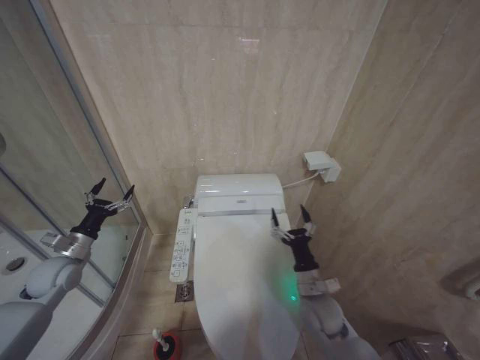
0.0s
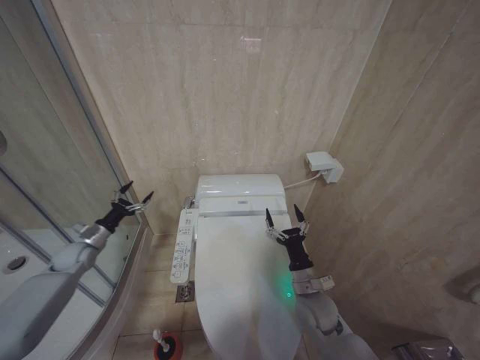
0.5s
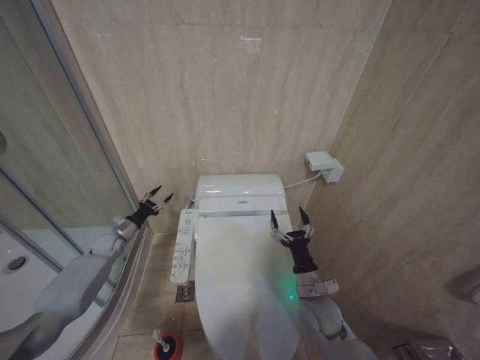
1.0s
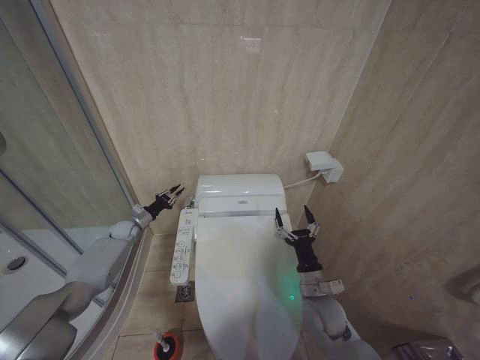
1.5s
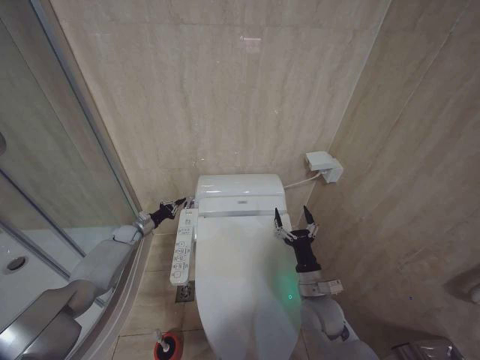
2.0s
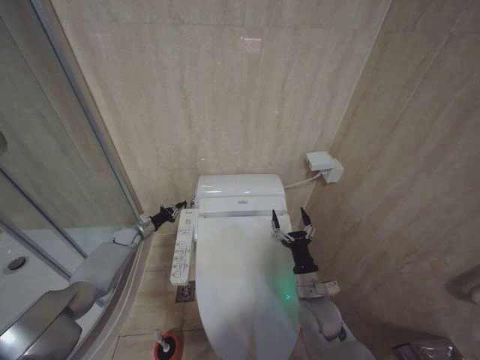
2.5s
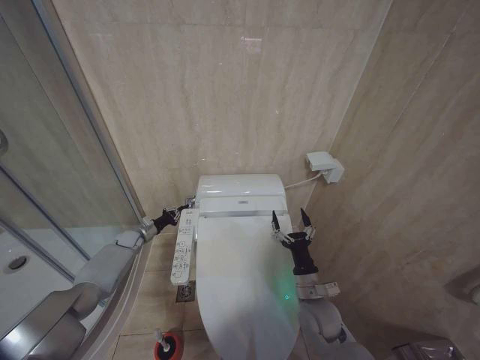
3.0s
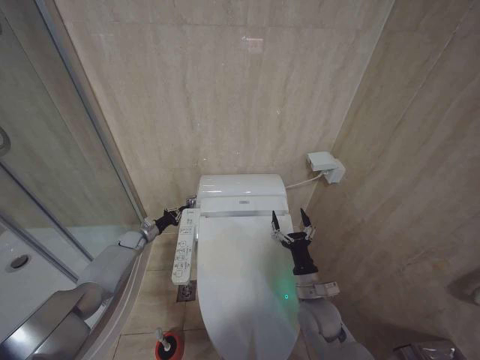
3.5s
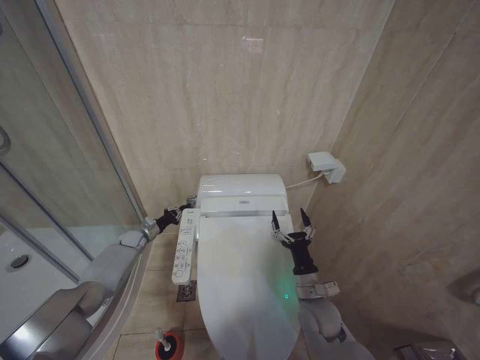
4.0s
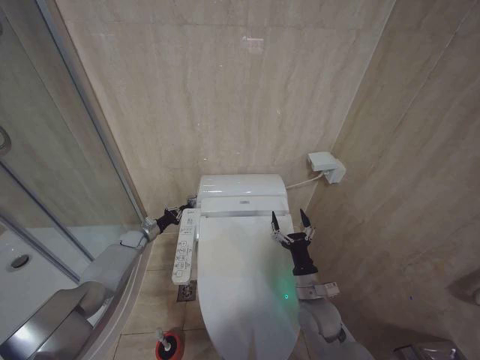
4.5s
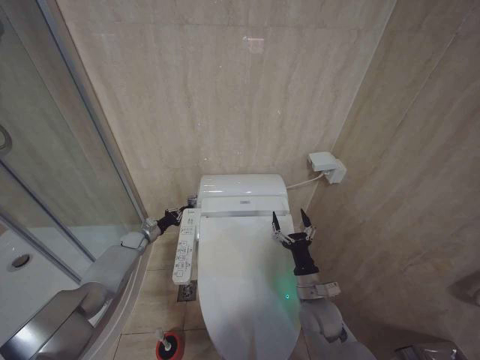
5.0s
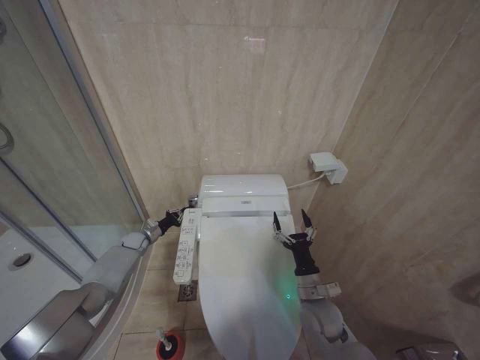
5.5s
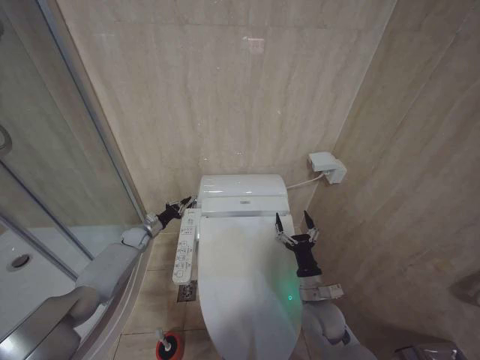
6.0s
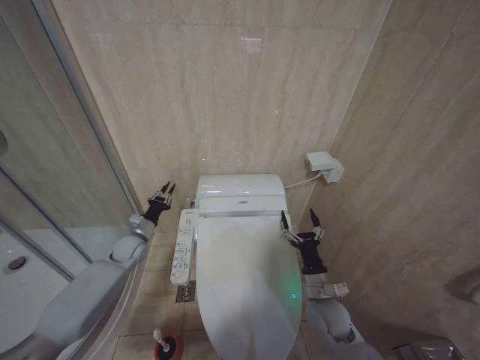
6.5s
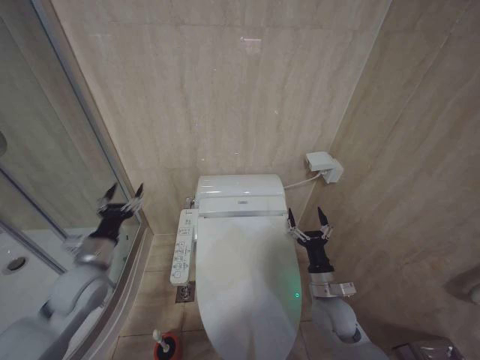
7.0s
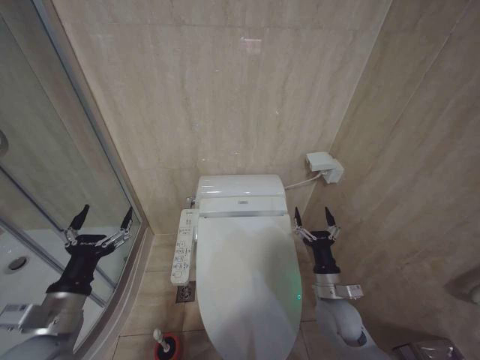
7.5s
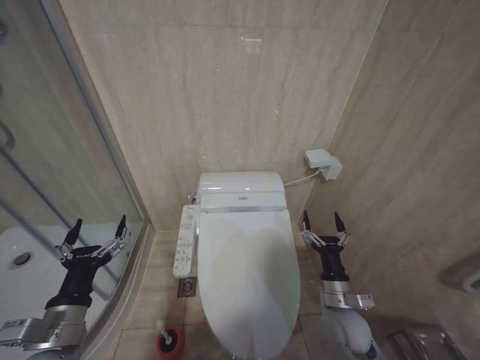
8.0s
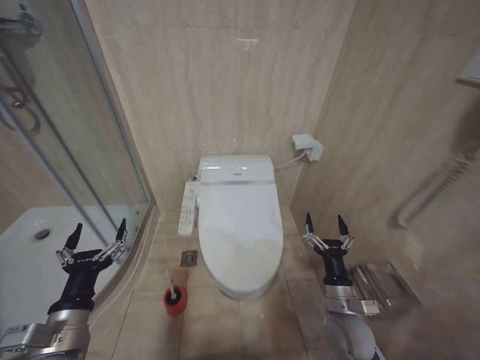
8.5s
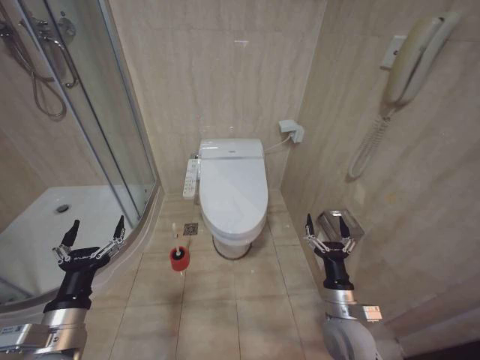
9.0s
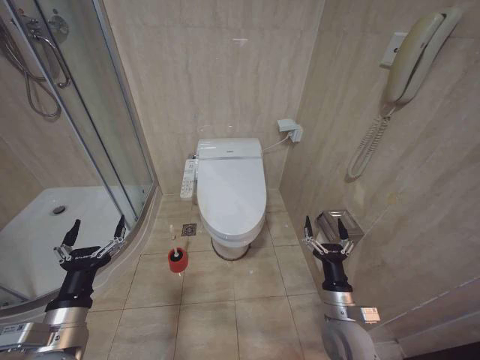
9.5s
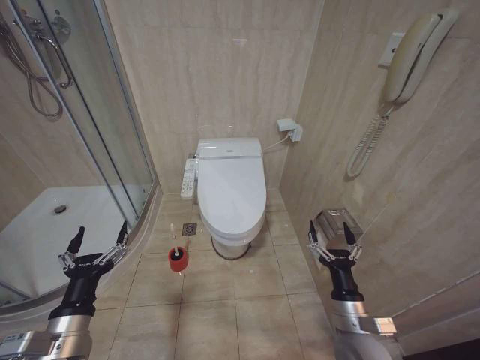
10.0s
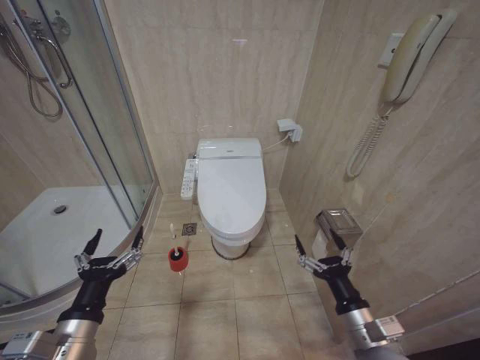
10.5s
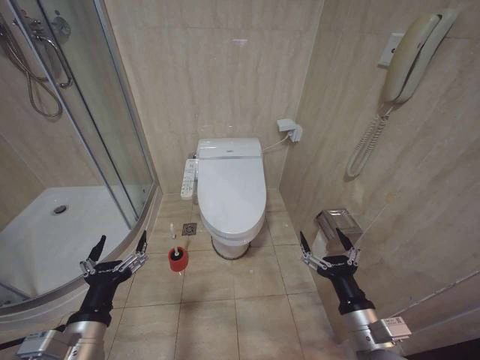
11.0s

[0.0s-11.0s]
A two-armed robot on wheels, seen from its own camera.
Task of the whole recording: Open the toilet lid, clean the toilet bowl with a toilet brush, close the toilet lid, and flush.
0.0s to 2.0s: The left gripper goes about 25 cm forward and downward, and closes.
2.0s to 5.5s: The grippers stay close to where they were, moving slightly.
5.5s to 7.5s: The left gripper moves backward and upward, about 40 cm, and opens its fingers.
7.5s to 9.0s: The right gripper shifts approximately 5 cm backward.
9.0s to 11.0s: The right gripper heads upward and backward, covering some 10 cm.

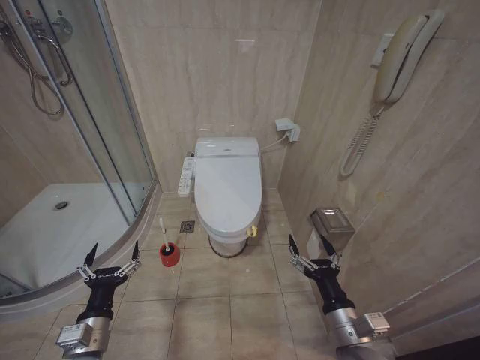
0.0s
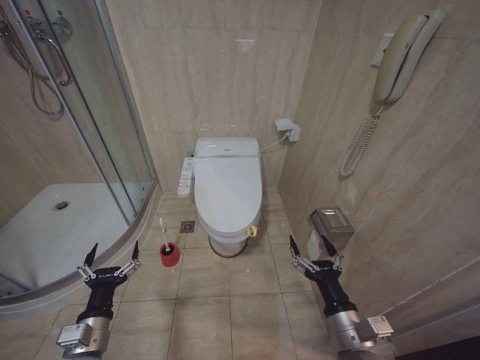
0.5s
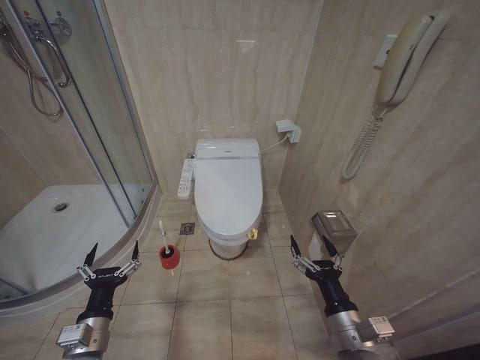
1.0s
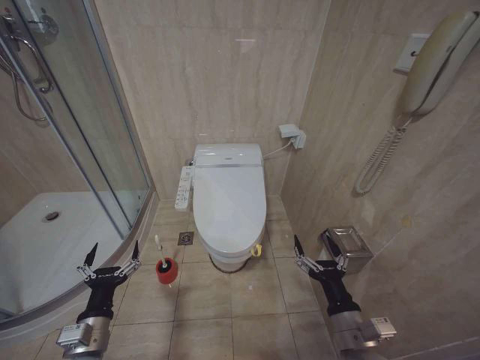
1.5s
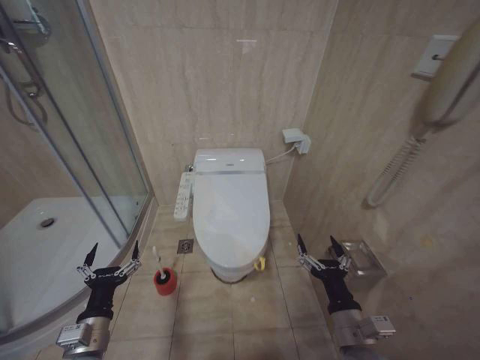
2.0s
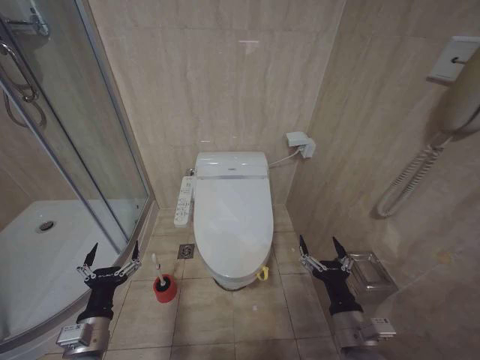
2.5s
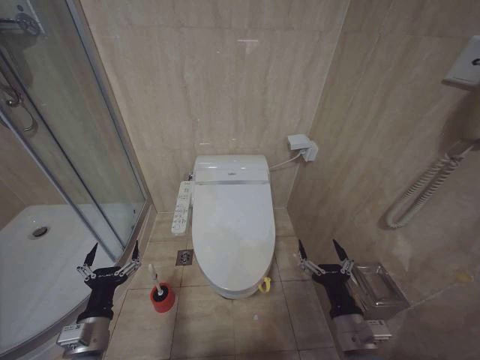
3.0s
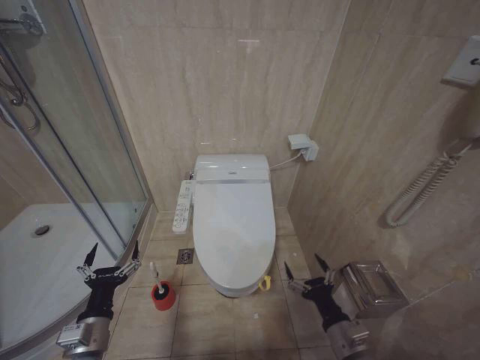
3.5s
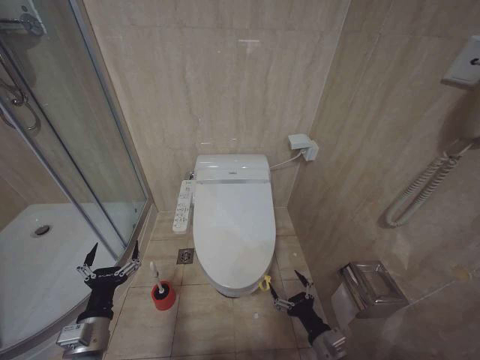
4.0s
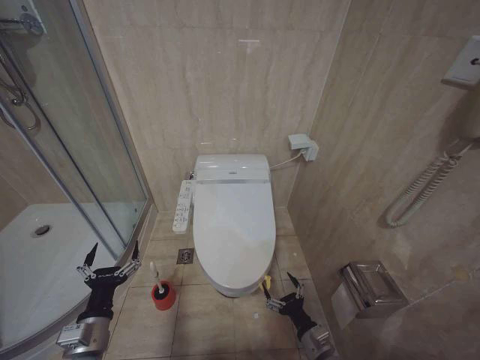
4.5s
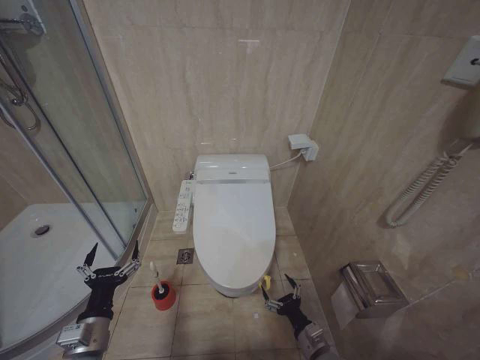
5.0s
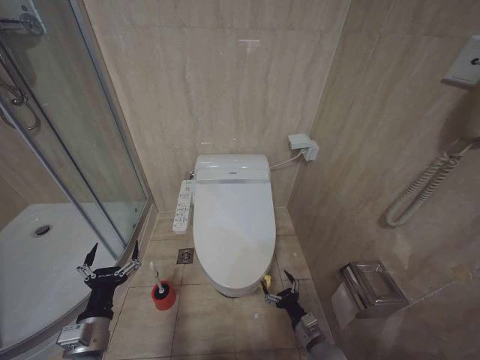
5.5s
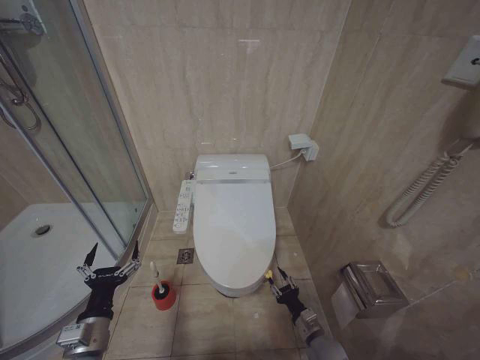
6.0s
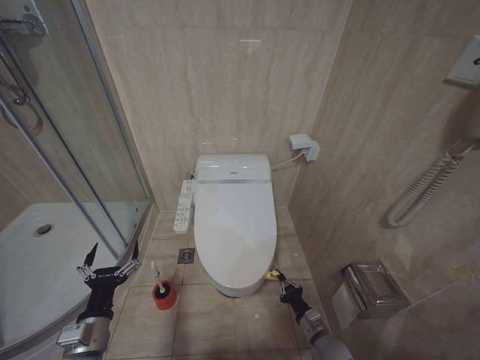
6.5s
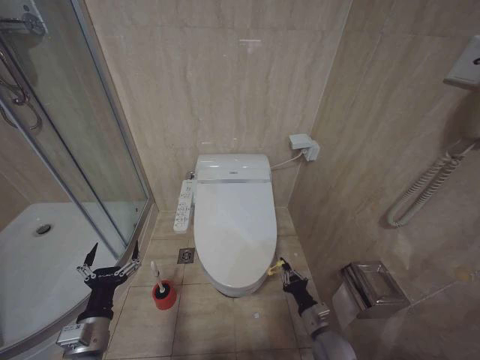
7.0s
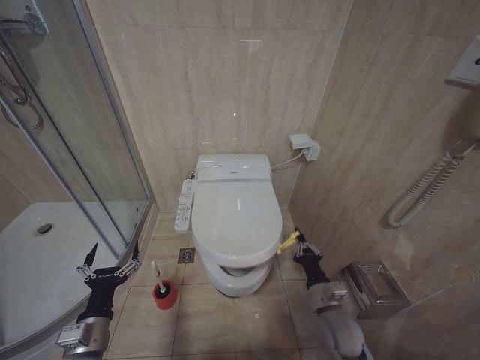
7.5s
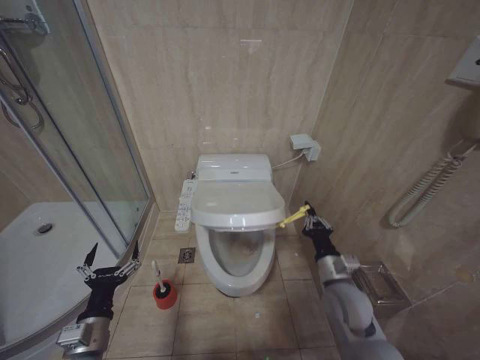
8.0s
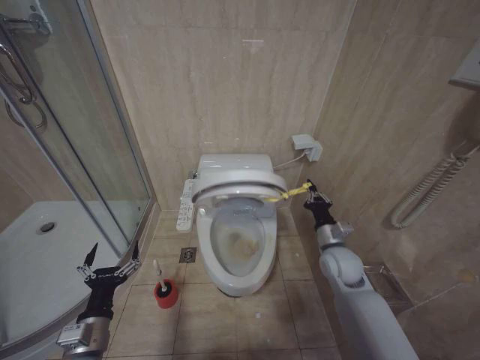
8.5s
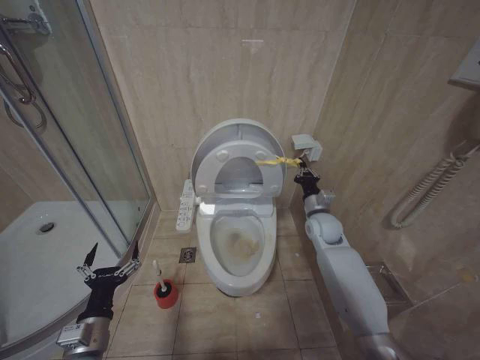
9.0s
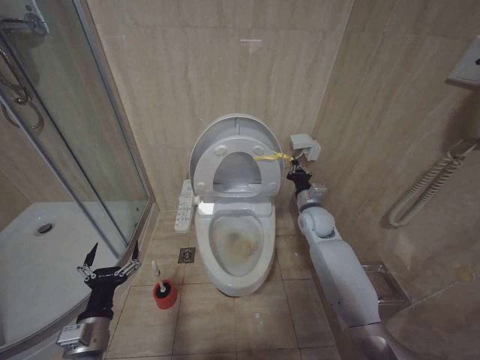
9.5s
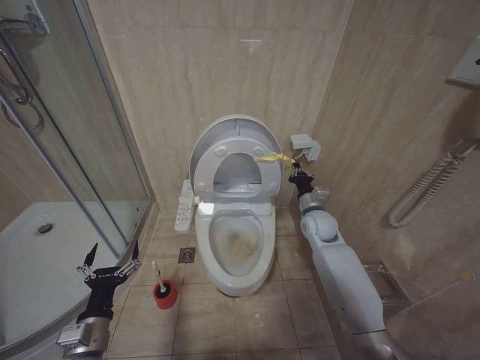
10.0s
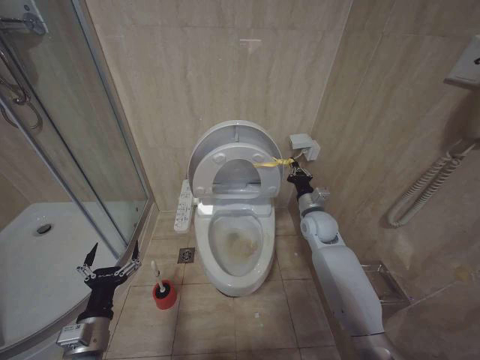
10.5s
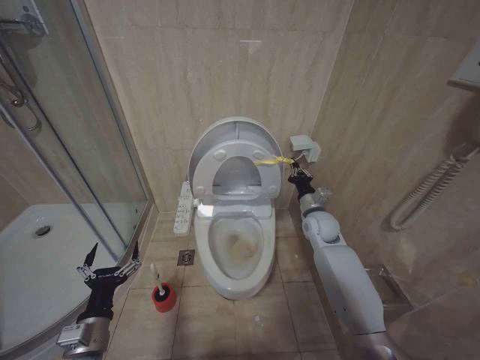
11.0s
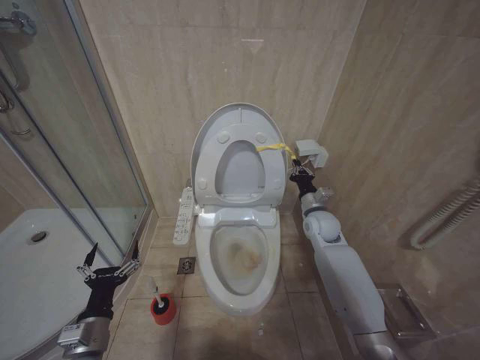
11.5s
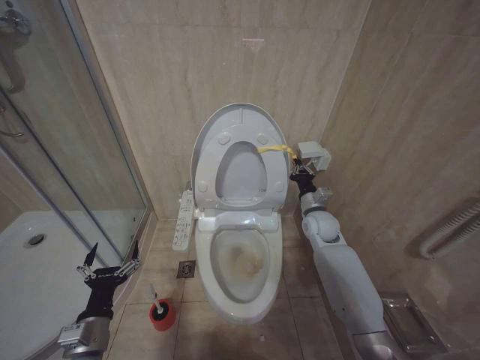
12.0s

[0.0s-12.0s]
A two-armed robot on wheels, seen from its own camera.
Task of the whole recording: Open the toilet lid, clean the toilet bowl with a toilet brush, close the toilet lid, and flush.
2.0s to 4.0s: The right gripper goes approximately 10 cm downward.
4.0s to 6.0s: The right gripper shifts some 10 cm downward and forward.
6.0s to 8.0s: The right gripper shifts some 20 cm upward, and closes its fingers.
8.0s to 10.0s: The right gripper travels forward by some 20 cm.
10.0s to 12.0s: The grippers move only a little.

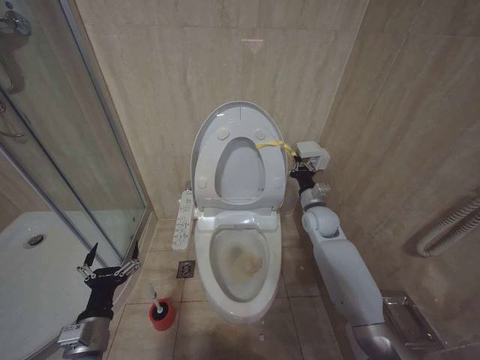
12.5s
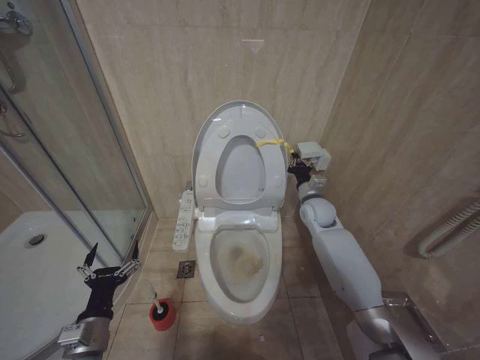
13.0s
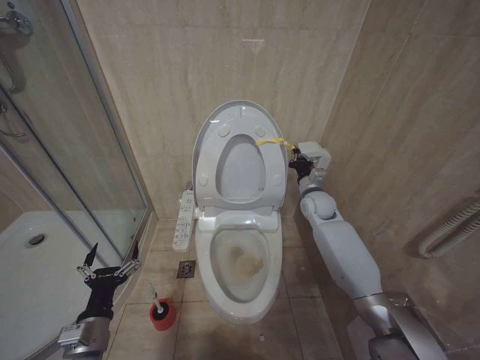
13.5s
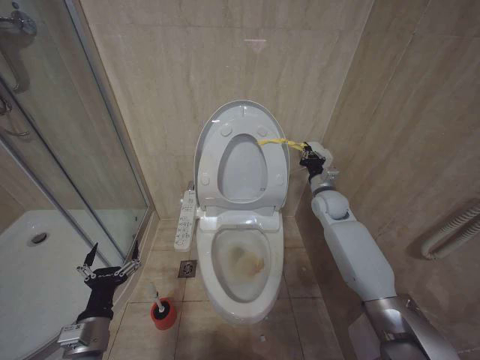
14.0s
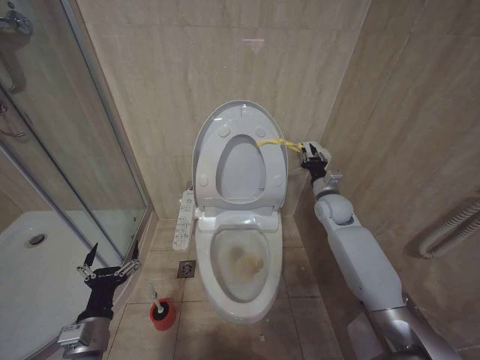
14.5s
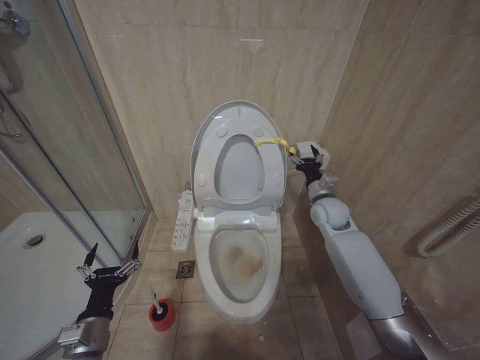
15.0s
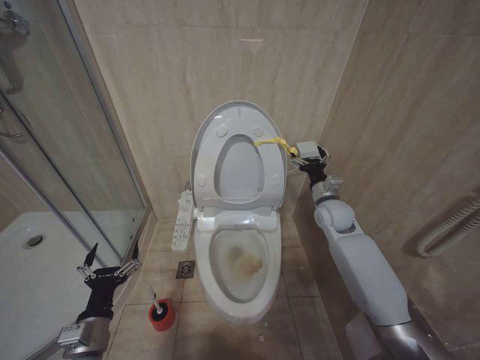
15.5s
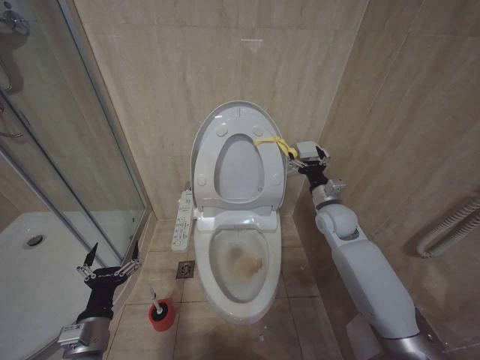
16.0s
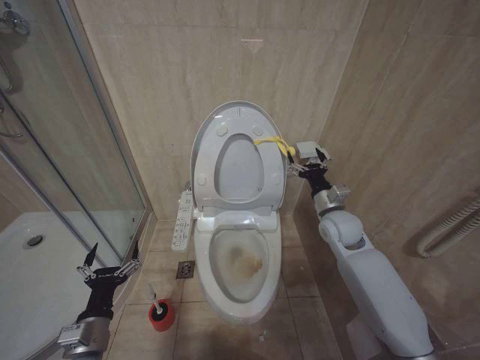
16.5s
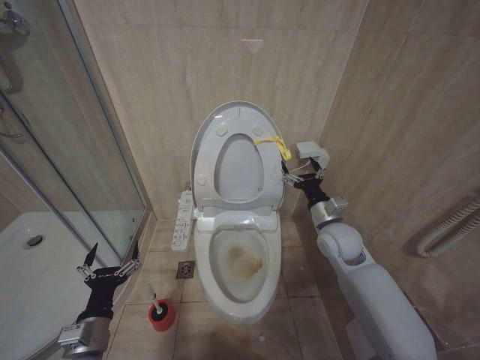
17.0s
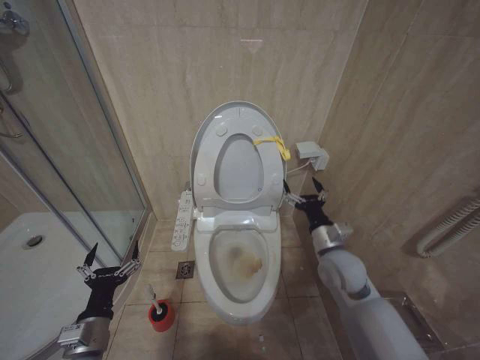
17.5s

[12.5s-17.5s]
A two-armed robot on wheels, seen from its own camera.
Task of the whole recording: Open the toilet lid, clean the toilet bowl with a toilet brush, close the toilet lid, and flush.
12.5s to 15.0s: The right gripper opens up.
15.0s to 17.5s: The right gripper travels backward by some 15 cm.
